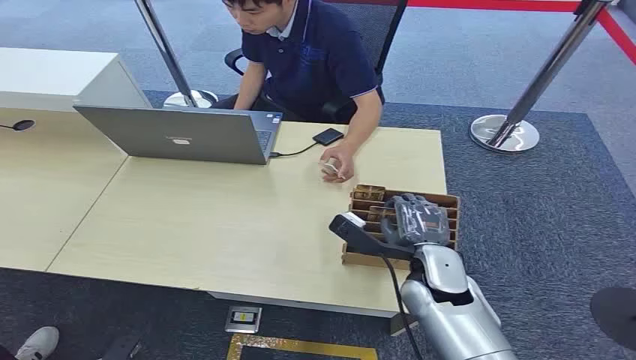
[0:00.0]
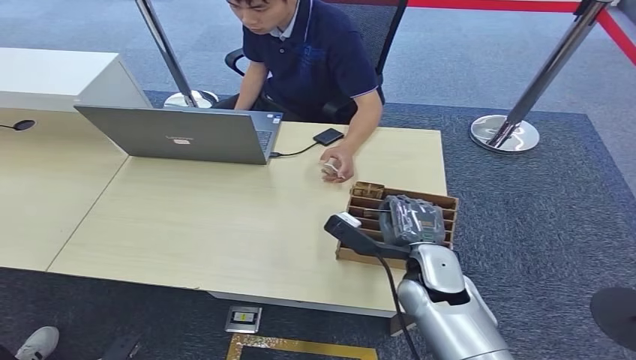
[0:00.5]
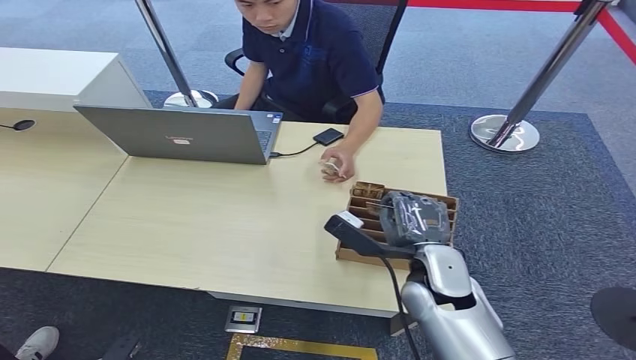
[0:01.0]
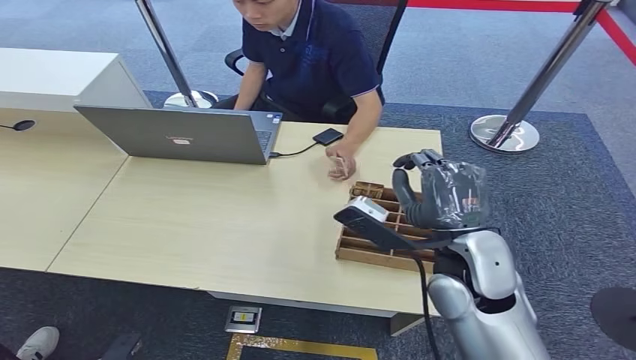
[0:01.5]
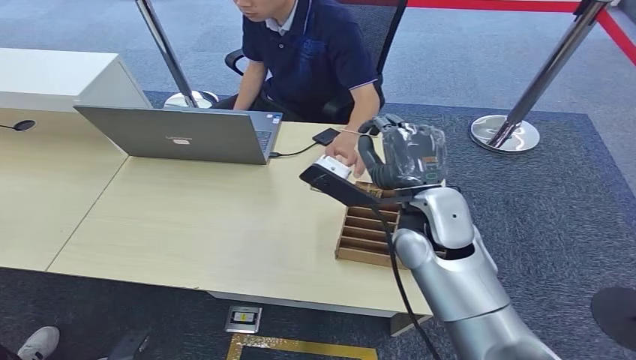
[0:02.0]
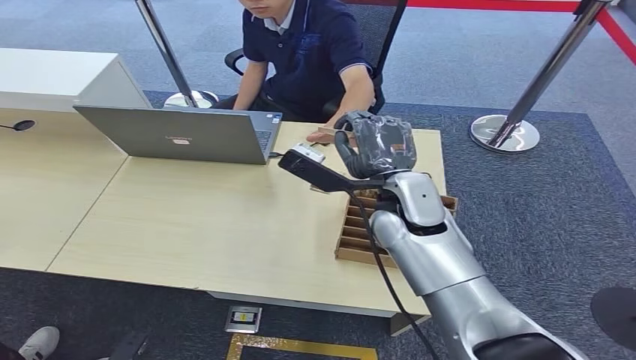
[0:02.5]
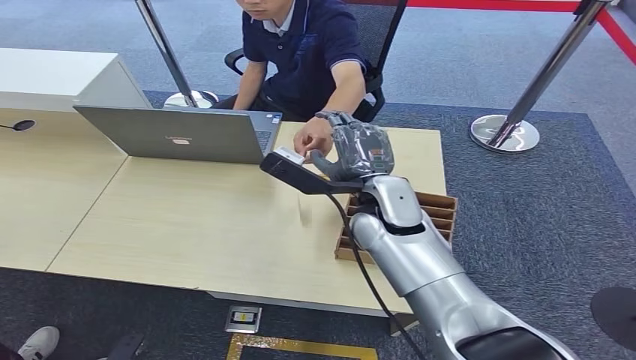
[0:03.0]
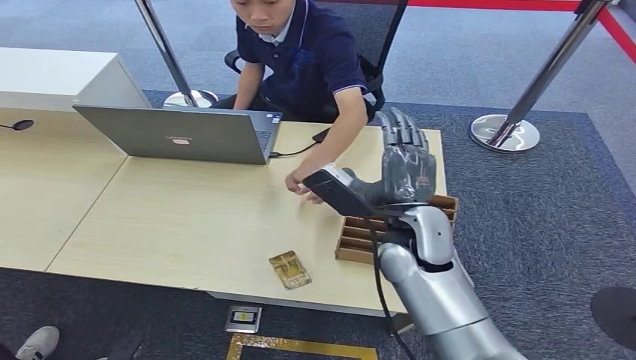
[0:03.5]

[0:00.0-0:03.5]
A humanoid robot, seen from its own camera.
Step, 0:00.0 to 0:01.5: Pick up the room card from the card holder.
Step, 0:02.0 to 0:03.5: Hand the room card to the target.
0:02.0 to 0:03.5: The hands stay close to where they were, moving slightly.
